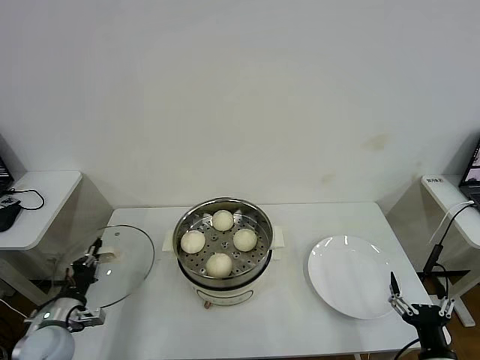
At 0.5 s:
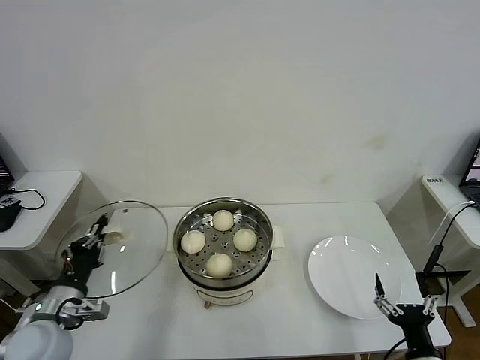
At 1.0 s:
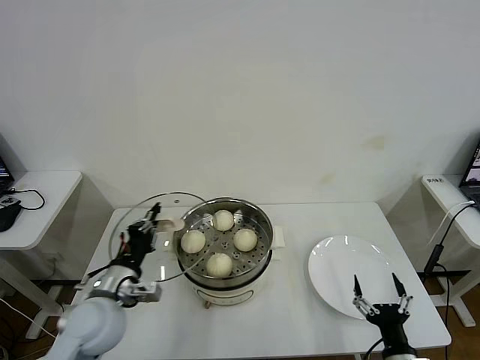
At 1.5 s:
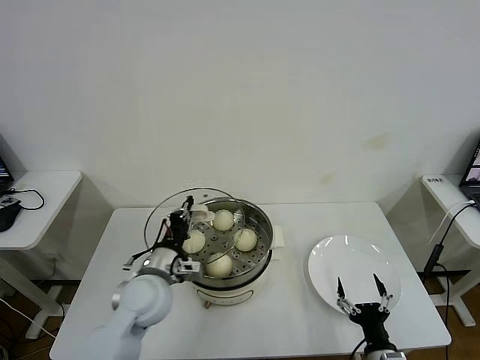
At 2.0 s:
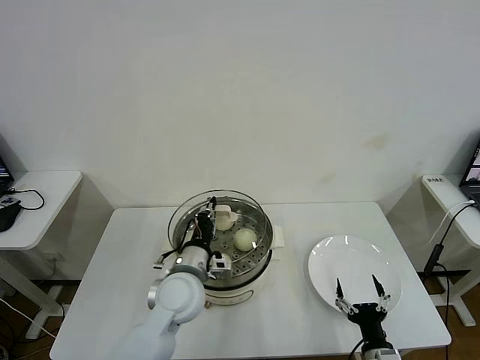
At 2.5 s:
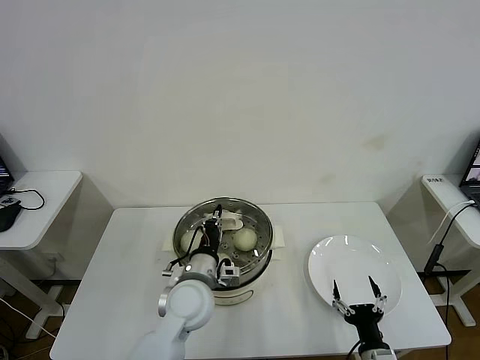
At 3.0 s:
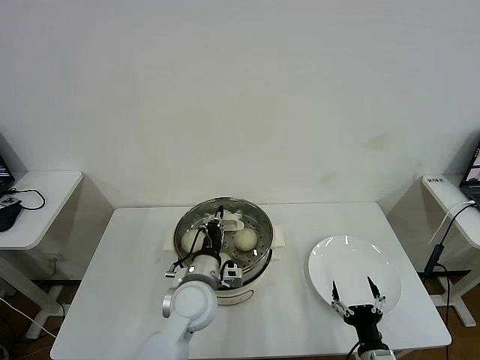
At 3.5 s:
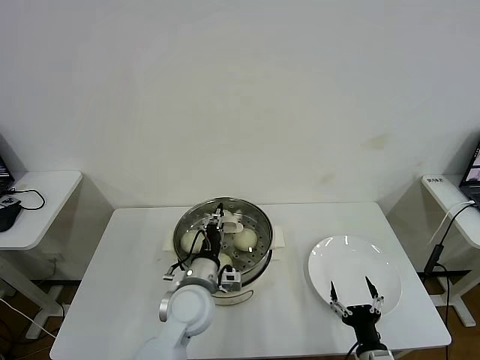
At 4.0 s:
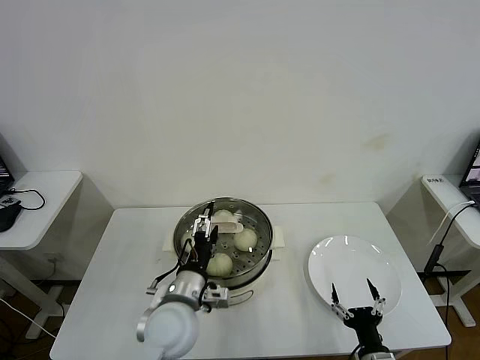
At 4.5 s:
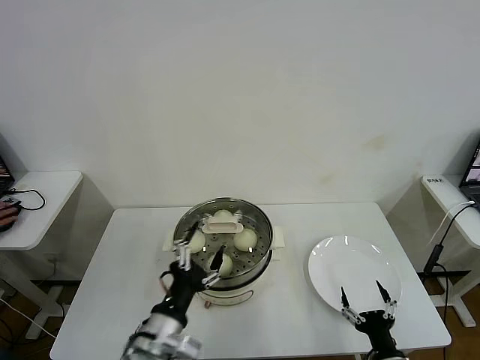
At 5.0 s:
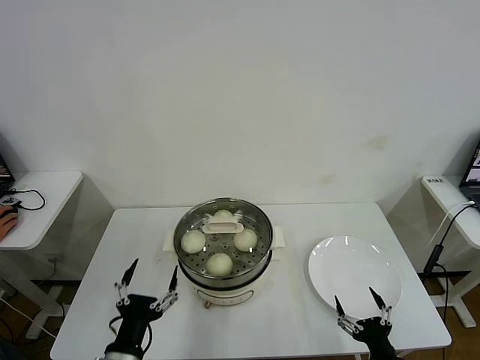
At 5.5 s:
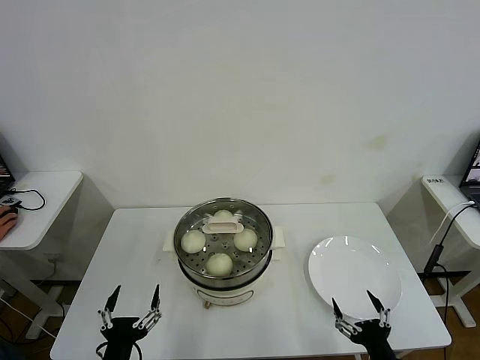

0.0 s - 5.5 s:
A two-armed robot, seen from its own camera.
Task of the whole recording: take steamed baozi put them in steamer then cover it.
Step, 0.0 s - 3.5 s: Place the pot lid on the steamer with left gripper.
0.0 s - 2.0 s: The right gripper moves to the left and downward, about 10 cm; the left gripper moves to the right and upward, approximately 30 cm.
2.0 s - 3.5 s: The grippers make only small movements.
3.5 s - 5.5 s: The right gripper heads upward, covering about 5 cm, while the left gripper is displaced backward and to the left by about 25 cm, and opens.
